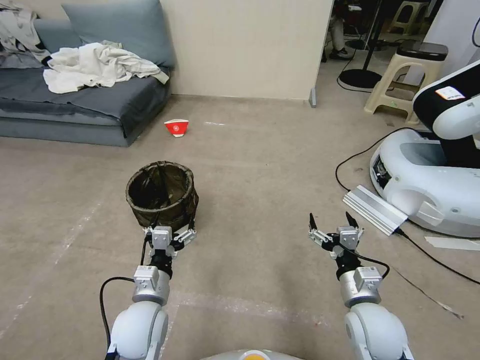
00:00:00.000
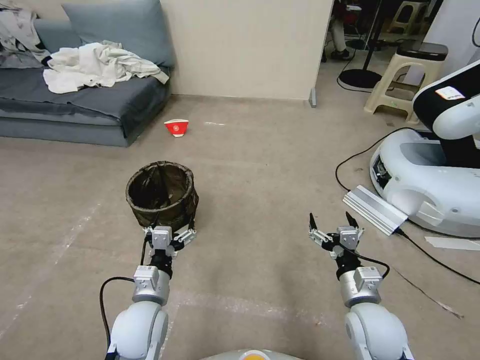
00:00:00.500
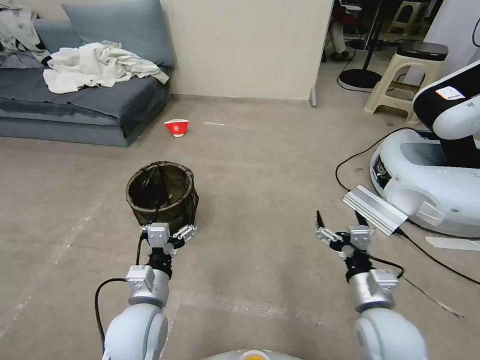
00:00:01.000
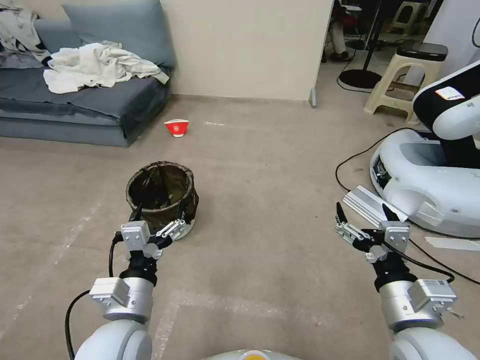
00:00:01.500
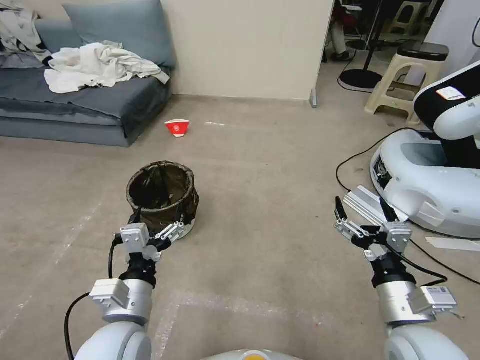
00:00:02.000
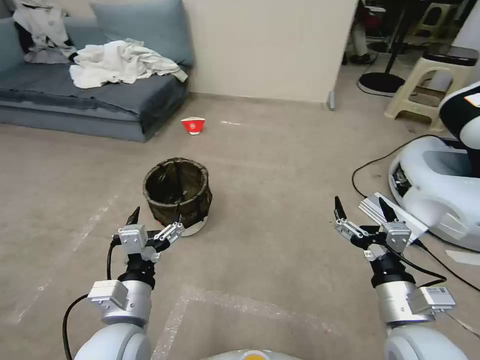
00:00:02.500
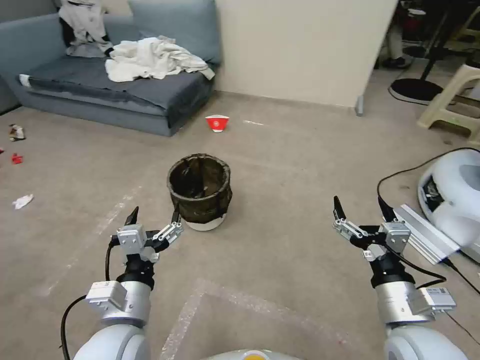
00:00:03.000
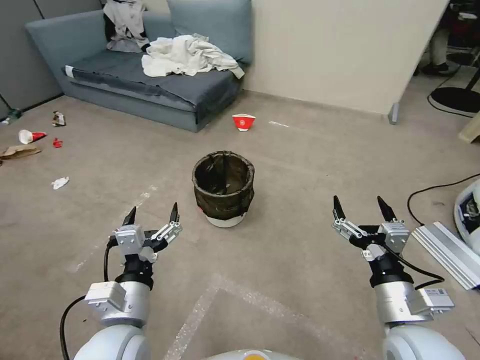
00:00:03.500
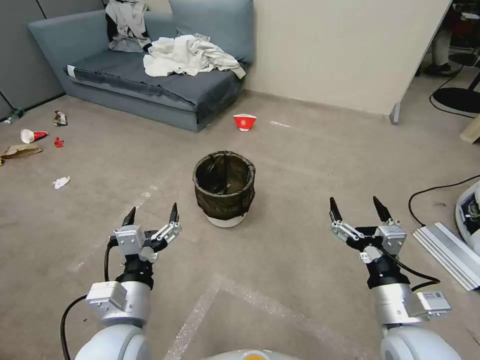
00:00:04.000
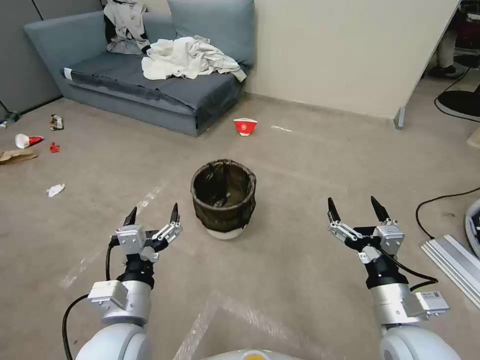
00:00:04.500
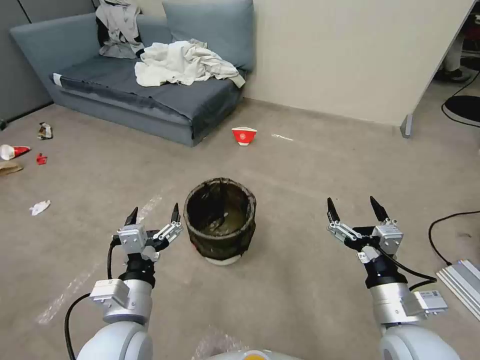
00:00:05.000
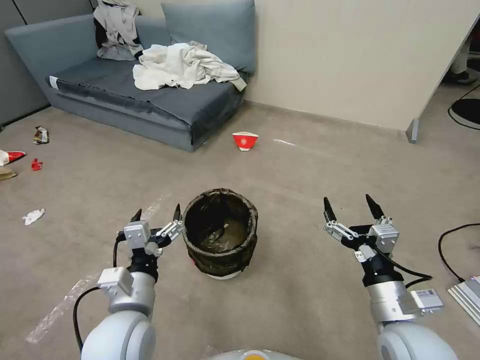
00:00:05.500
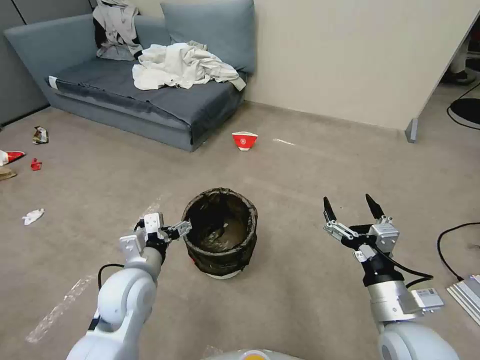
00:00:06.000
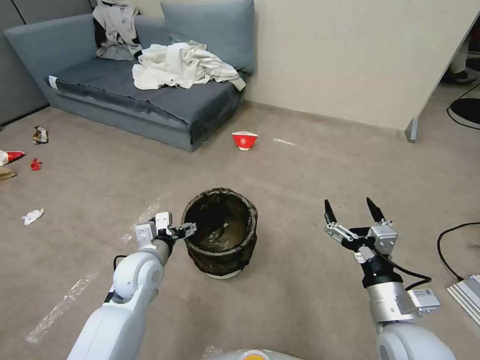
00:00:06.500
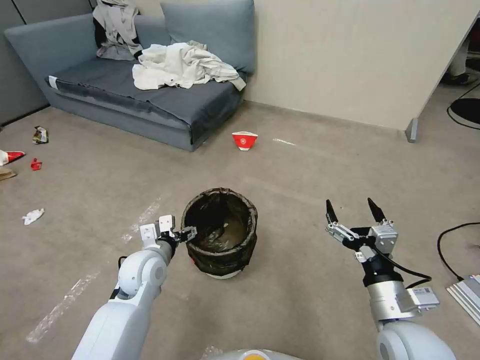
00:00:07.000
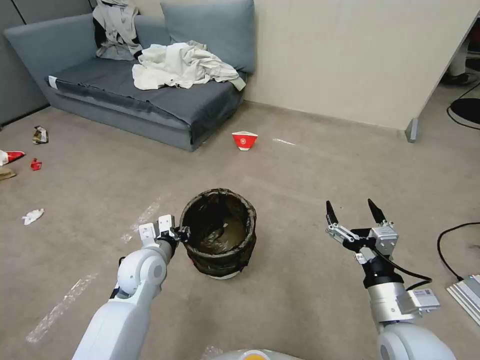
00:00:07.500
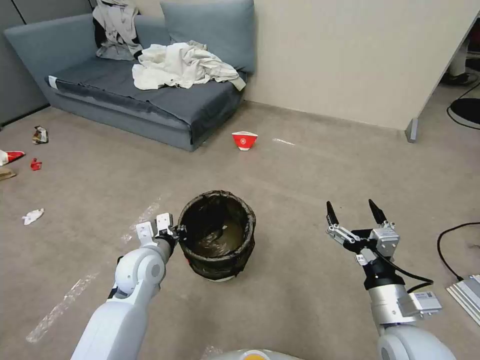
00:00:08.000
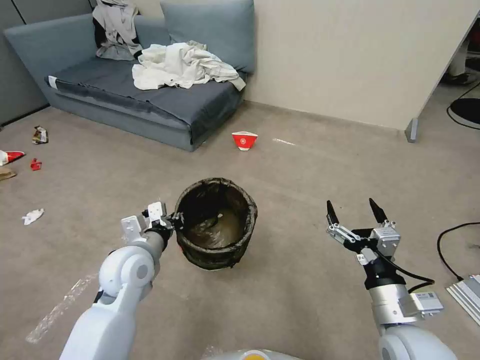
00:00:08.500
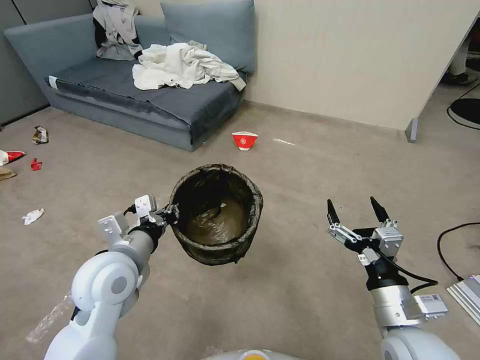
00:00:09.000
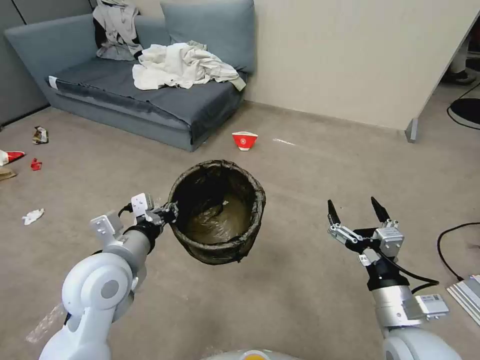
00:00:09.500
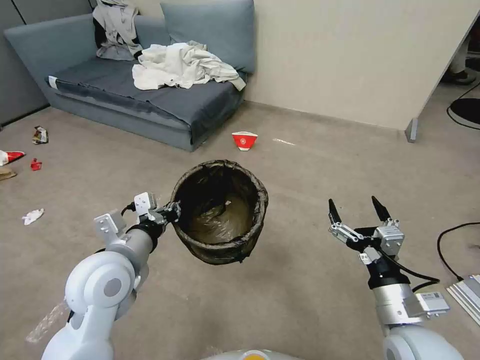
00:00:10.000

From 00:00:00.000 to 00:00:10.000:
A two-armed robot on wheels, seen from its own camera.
Task of the whole recording: Pick up the trash can from the floor.
From 00:00:04.000 to 00:00:06.000: The left gripper heads forward, covering roughly 10 cm.
From 00:00:06.000 to 00:00:08.000: The left gripper goes some 5 cm forward, and closes its fingers.
From 00:00:08.000 to 00:00:10.000: The left gripper is displaced upward and backward by approximately 15 cm.

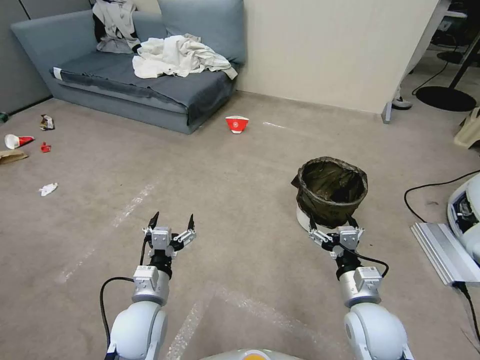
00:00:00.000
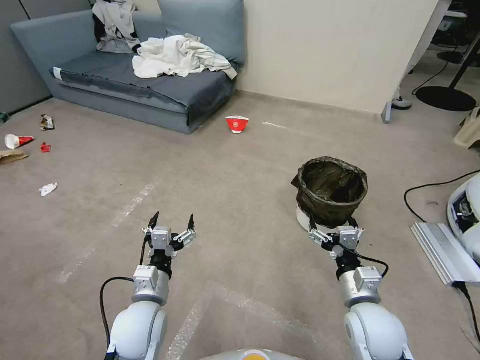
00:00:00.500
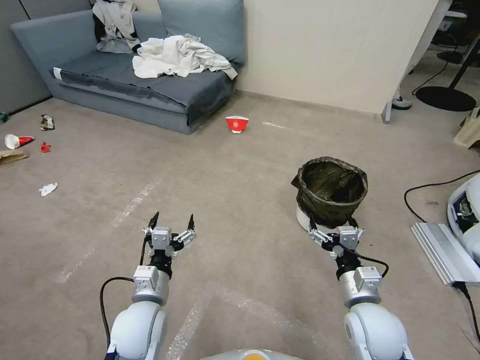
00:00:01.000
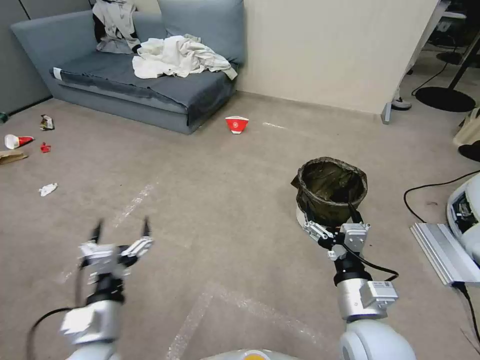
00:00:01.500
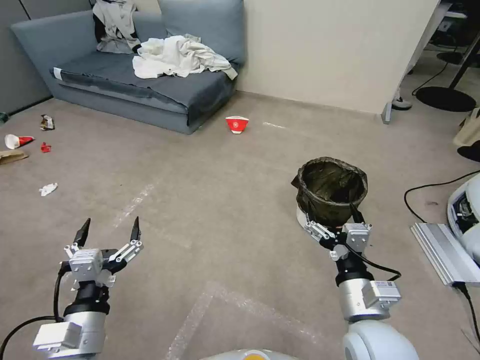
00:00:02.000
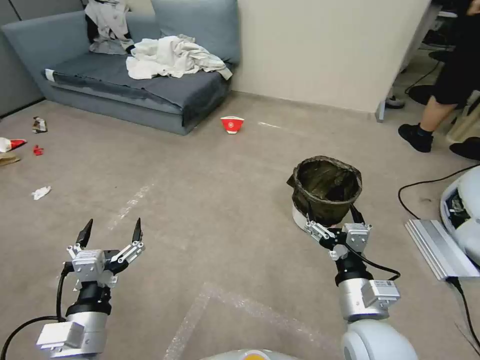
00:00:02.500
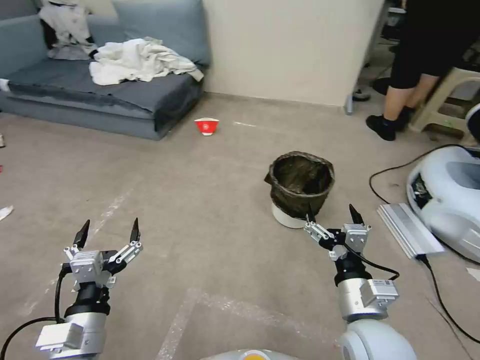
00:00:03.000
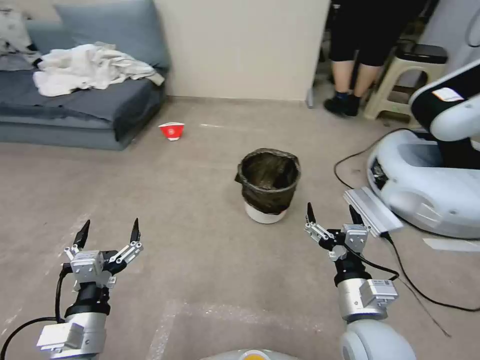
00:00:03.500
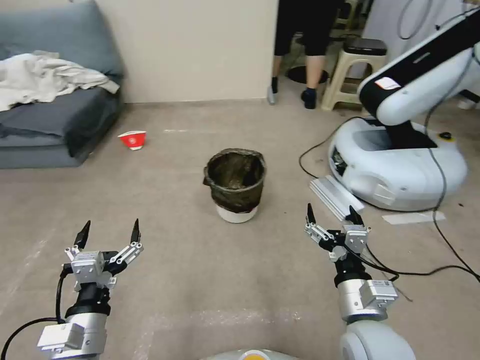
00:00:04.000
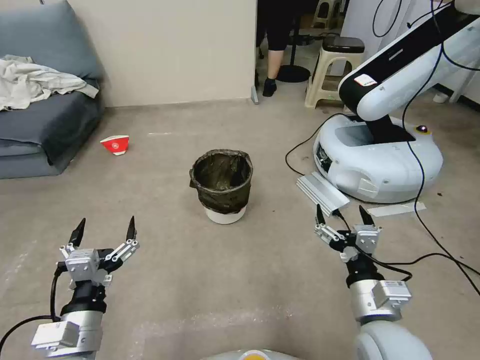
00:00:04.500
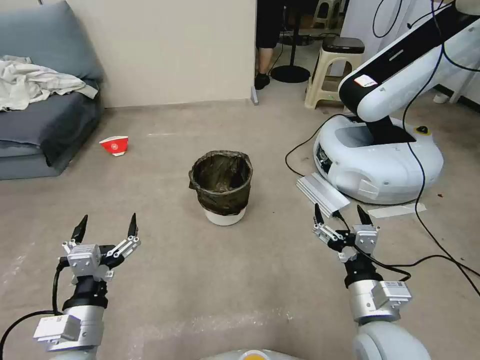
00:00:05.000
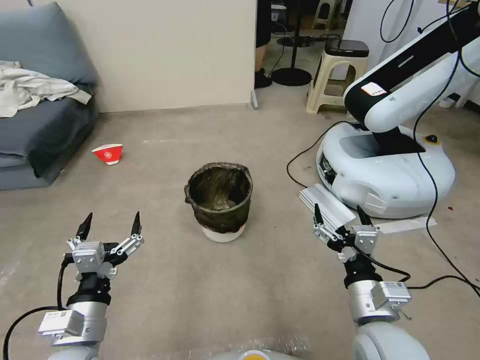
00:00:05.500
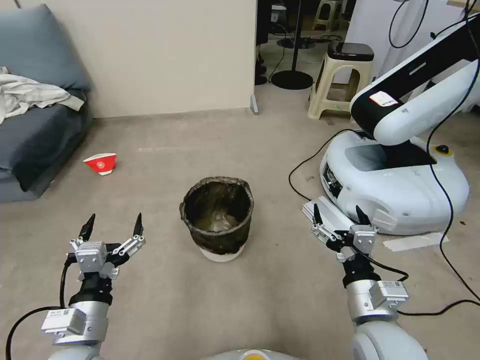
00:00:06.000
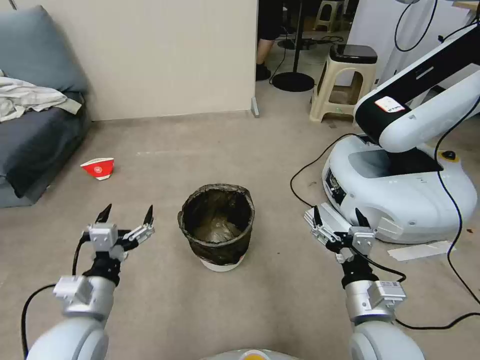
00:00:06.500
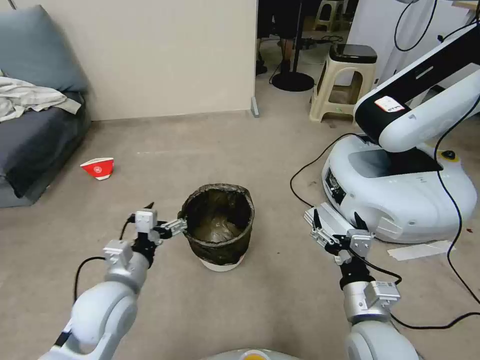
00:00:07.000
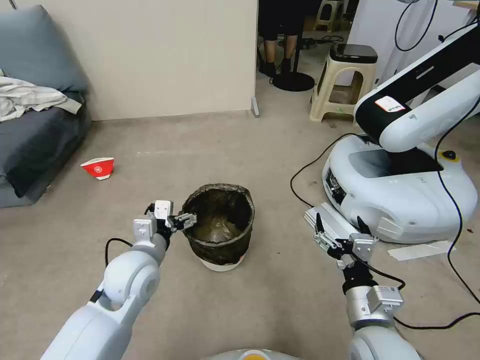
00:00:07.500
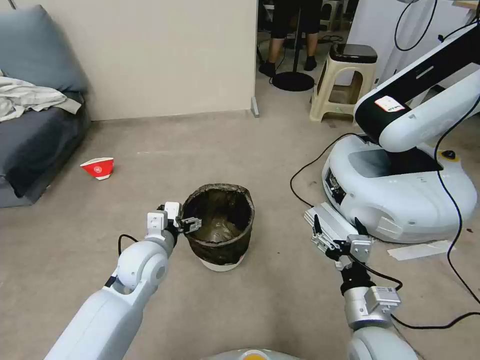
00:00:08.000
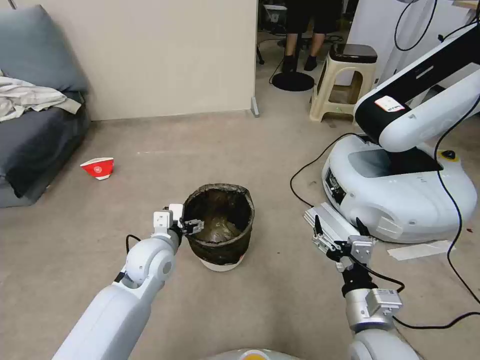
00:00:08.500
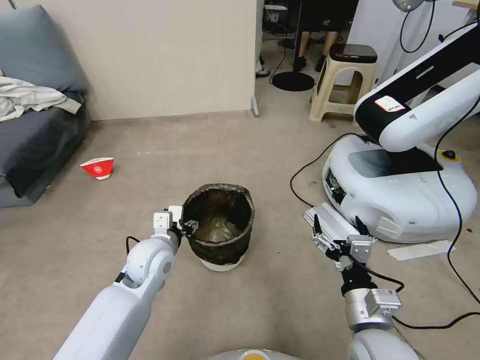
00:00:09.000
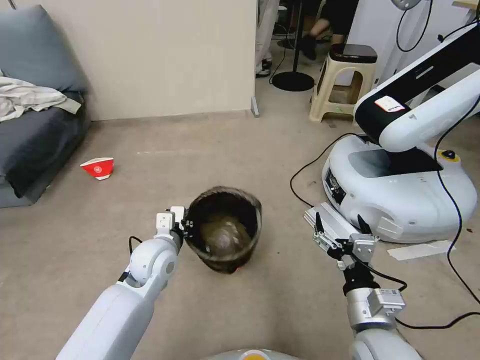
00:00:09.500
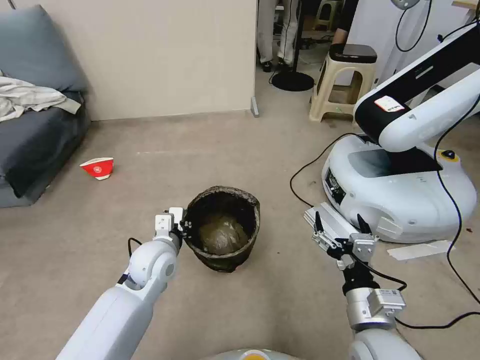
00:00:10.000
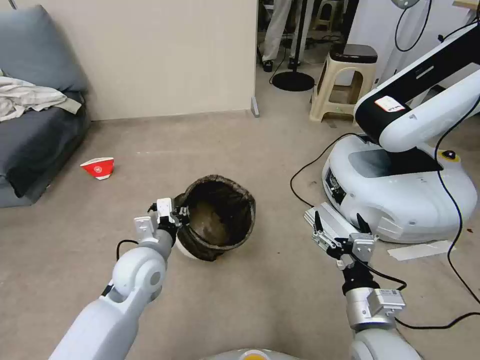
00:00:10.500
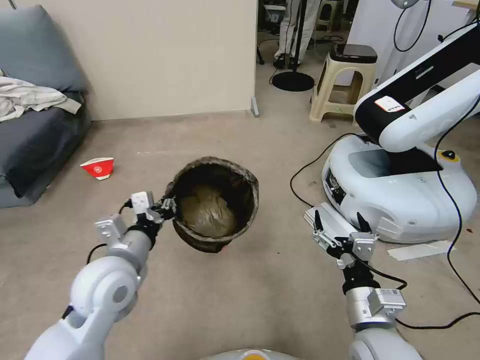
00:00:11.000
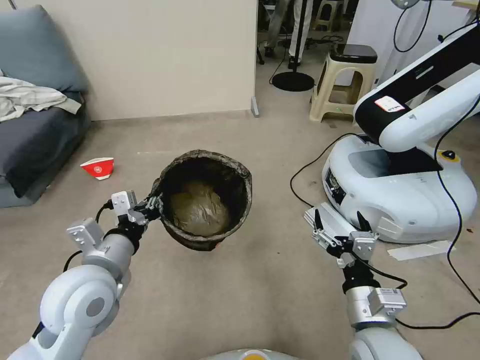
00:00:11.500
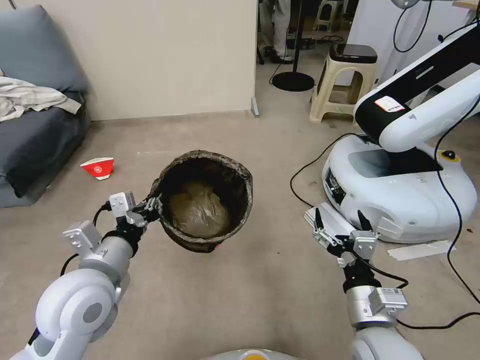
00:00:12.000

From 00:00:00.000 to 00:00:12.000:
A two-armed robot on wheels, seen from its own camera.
Task of the whole recording: Pick up the trash can from the floor.
From 00:00:06.000 to 00:00:08.000: The left gripper moves forward, about 20 cm.
From 00:00:08.000 to 00:00:10.000: The left gripper closes its fingers.
From 00:00:10.000 to 00:00:12.000: The left gripper heads upward, backward and to the left, covering approximately 15 cm.
